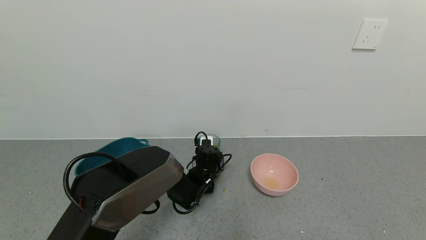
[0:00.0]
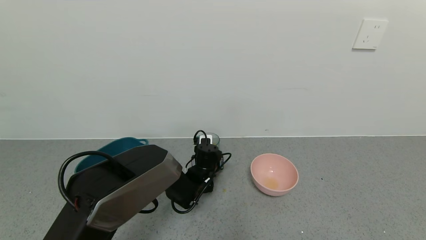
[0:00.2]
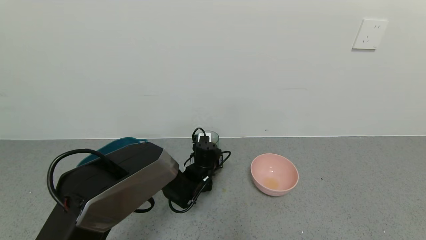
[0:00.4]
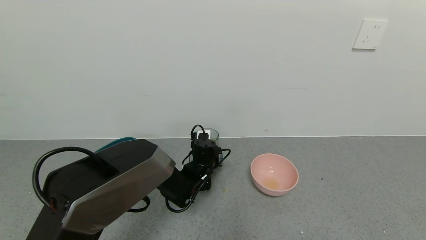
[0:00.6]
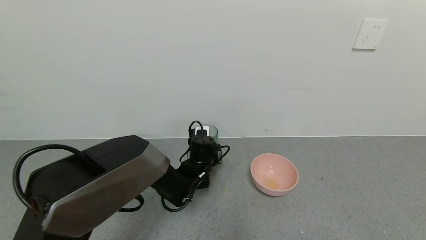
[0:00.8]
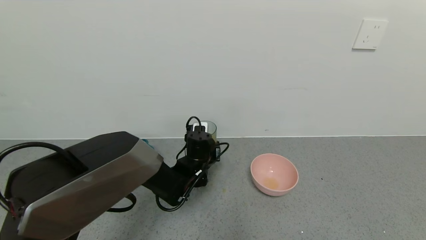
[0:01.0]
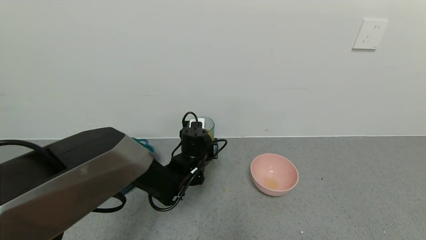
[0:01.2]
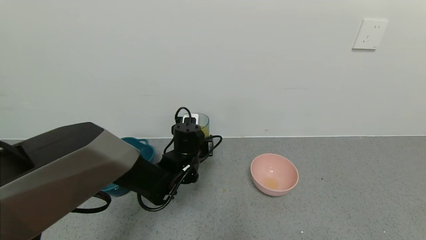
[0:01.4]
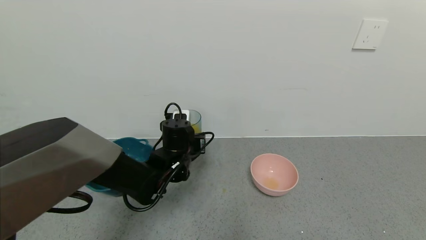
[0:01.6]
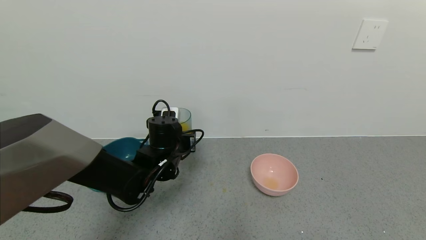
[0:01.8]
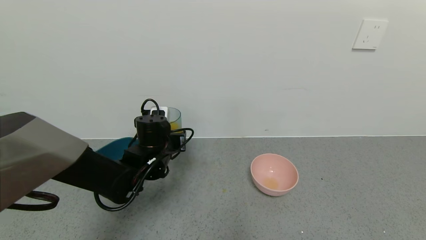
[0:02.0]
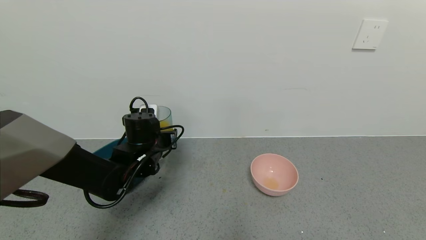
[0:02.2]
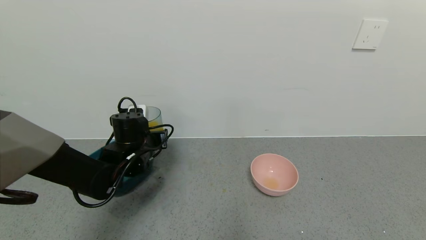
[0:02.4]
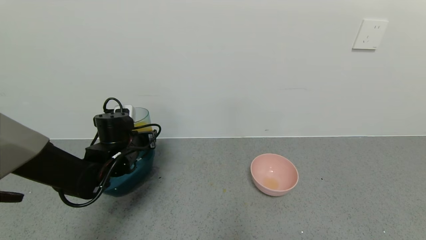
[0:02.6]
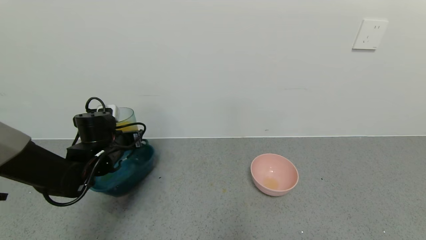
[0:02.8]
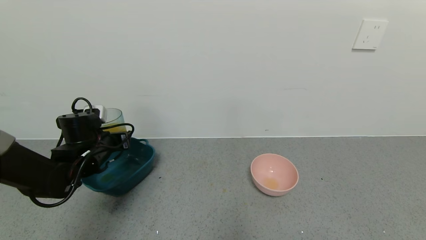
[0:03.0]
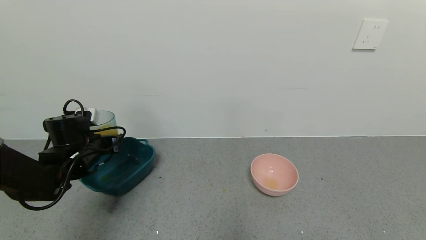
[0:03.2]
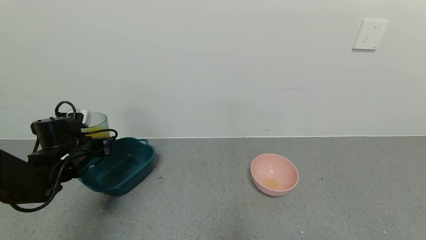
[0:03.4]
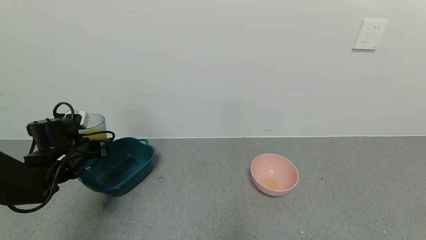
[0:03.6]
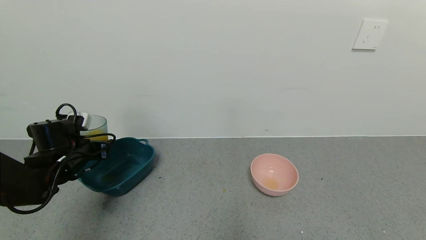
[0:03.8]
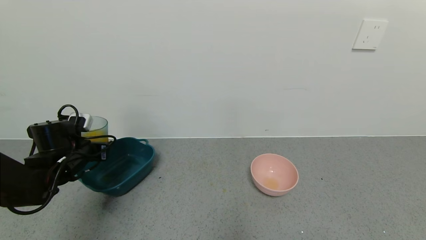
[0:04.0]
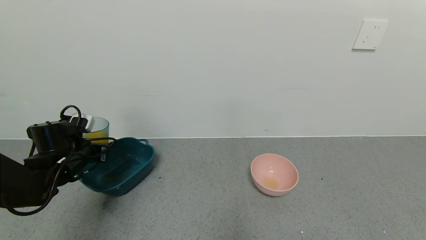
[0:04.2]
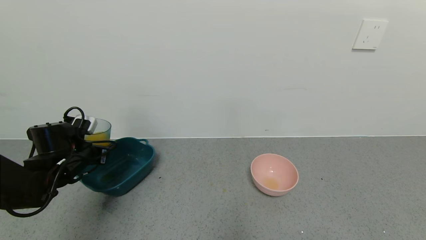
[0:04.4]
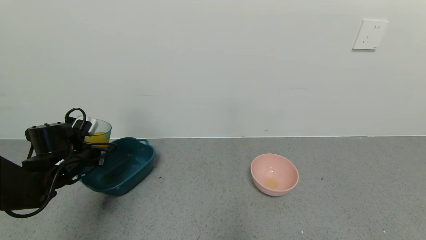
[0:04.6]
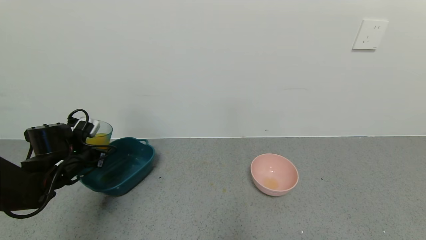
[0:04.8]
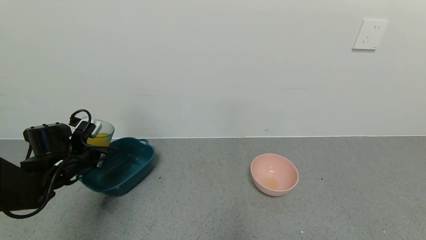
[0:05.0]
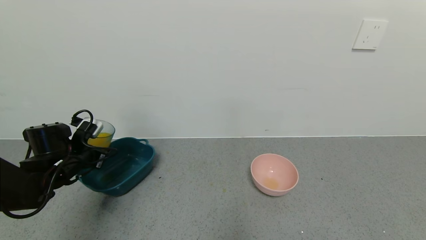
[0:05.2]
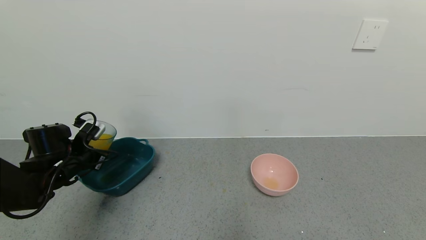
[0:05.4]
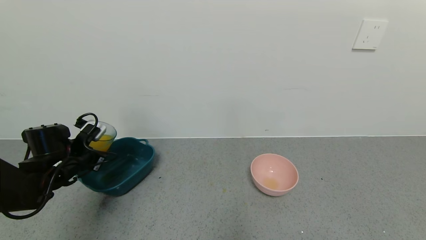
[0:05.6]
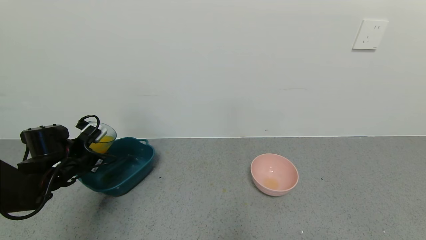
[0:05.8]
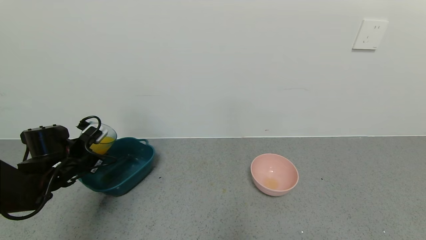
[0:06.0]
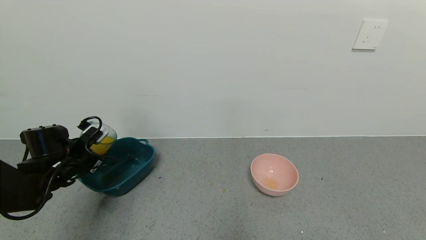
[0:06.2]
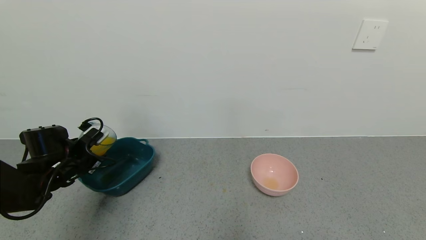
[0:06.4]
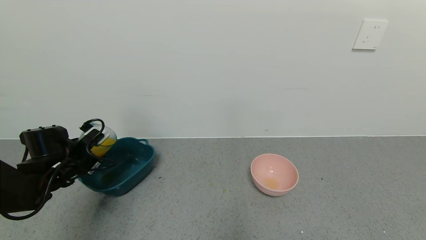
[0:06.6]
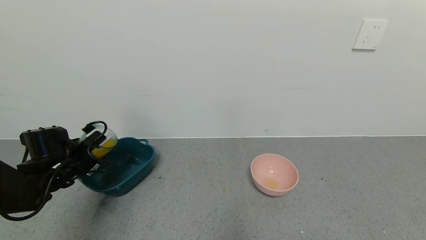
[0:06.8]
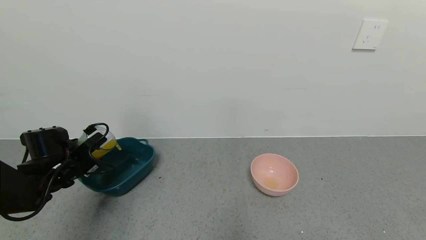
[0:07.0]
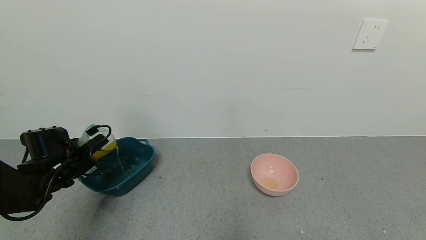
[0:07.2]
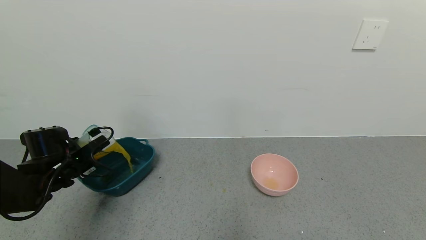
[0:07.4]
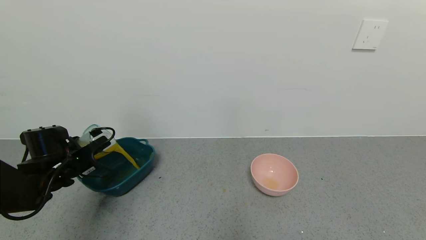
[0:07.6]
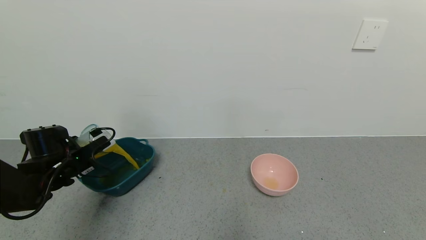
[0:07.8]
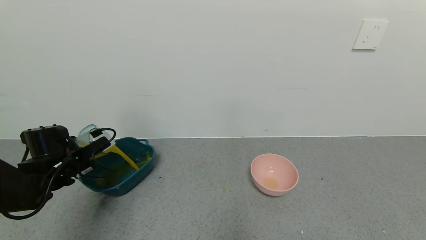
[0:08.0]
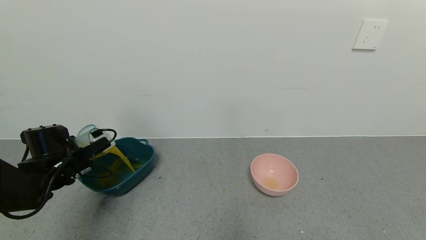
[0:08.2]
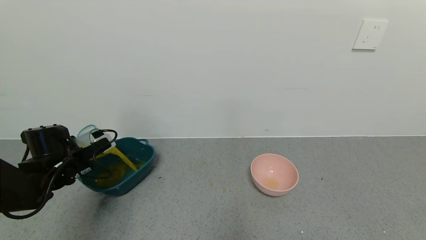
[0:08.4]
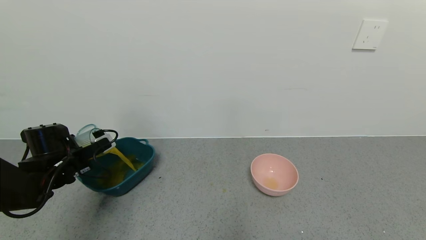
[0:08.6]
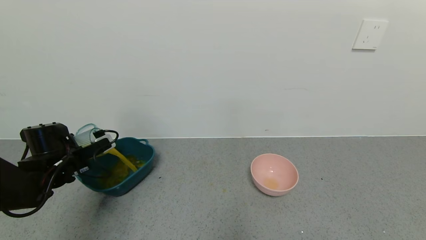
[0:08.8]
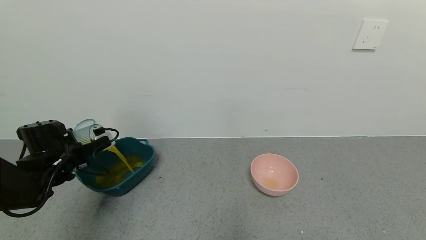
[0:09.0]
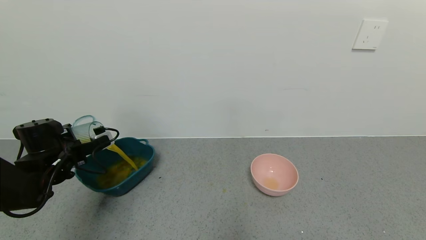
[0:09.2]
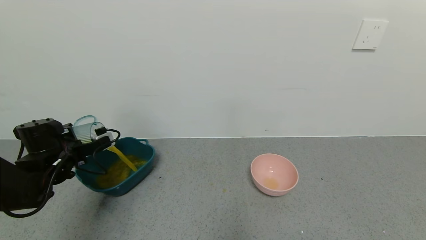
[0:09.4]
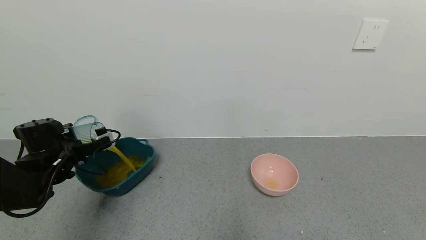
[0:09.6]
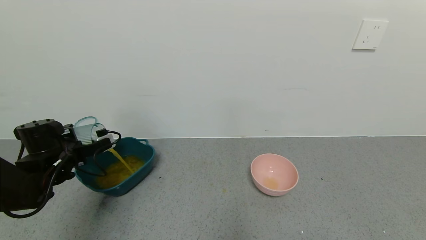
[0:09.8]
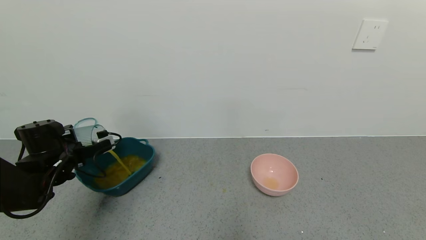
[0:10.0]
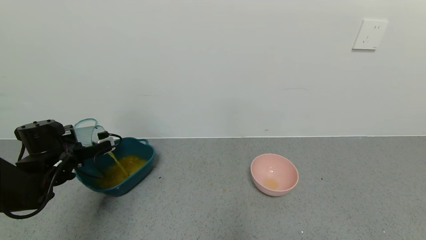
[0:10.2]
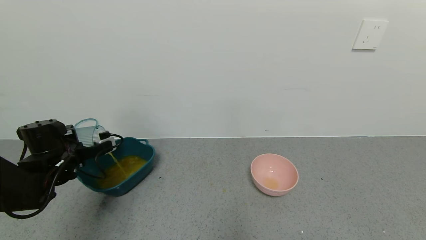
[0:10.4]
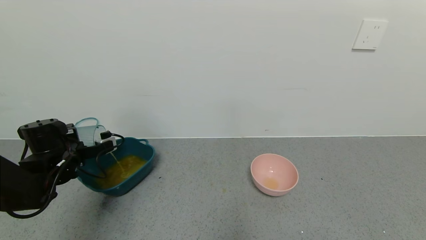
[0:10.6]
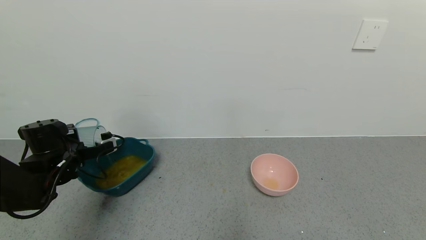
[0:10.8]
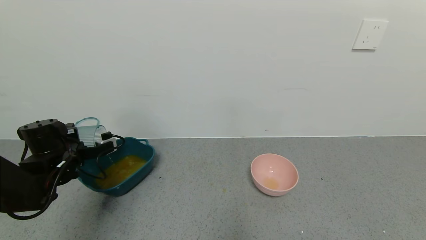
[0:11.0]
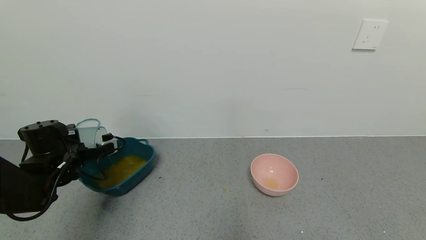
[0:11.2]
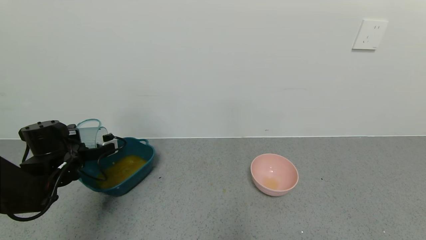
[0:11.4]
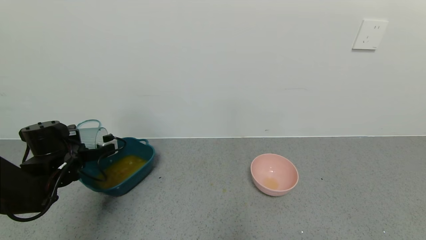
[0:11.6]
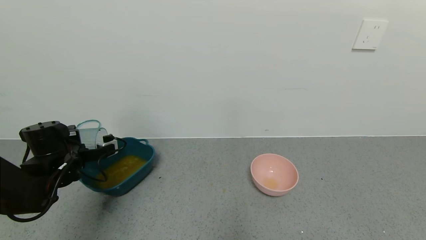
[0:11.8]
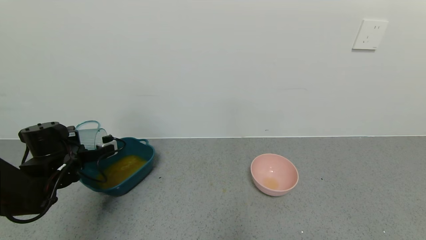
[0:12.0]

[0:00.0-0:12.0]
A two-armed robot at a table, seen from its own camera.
Task of the whole recording: use a gripper to pick up the cup and pour the liquid into a bowl or tray.
Step, 0:00.4 to 0:12.0: Pour the orange juice into the blue basin with left gripper.
0:00.0 to 0:01.6: The left gripper shifts about 15 cm upward, backward and to the left.
0:01.6 to 0:03.0: The left gripper moves to the left, about 20 cm.
0:03.0 to 0:04.4: The left gripper moves to the left, about 5 cm.
0:07.6 to 0:09.0: The grippers stay close to where they were, moving slightly.
0:09.0 to 0:10.4: The grippers move only a little.
0:10.4 to 0:12.0: Both grippers stay about where they are.

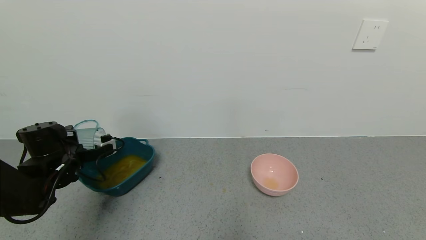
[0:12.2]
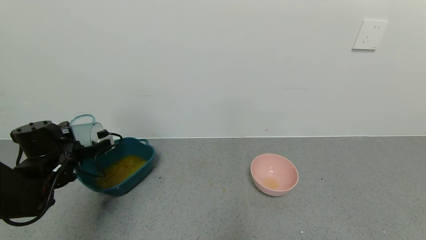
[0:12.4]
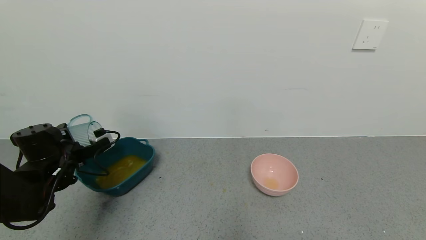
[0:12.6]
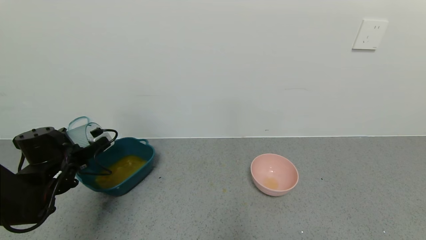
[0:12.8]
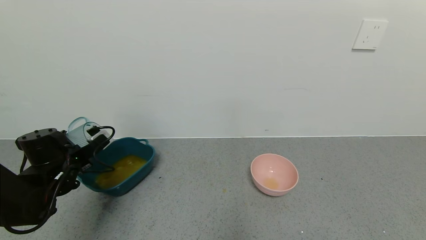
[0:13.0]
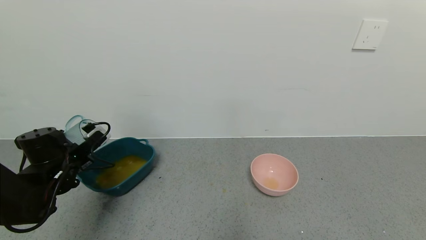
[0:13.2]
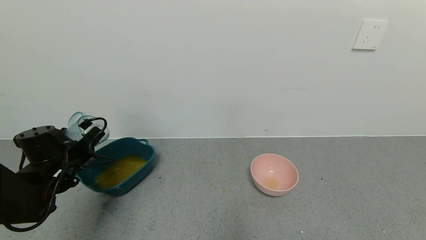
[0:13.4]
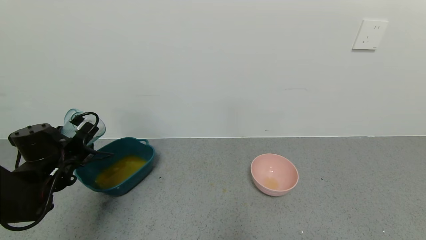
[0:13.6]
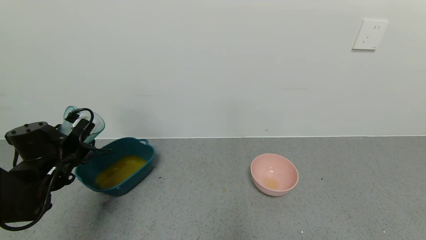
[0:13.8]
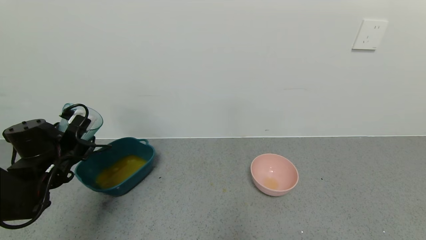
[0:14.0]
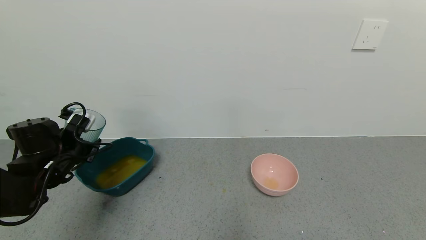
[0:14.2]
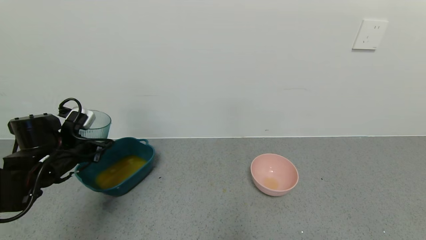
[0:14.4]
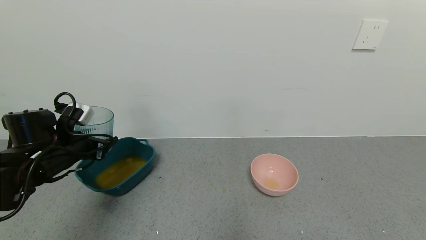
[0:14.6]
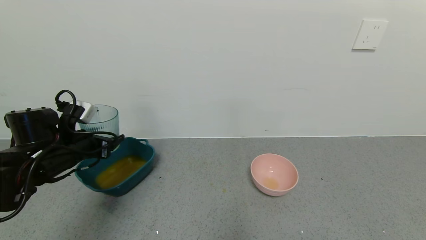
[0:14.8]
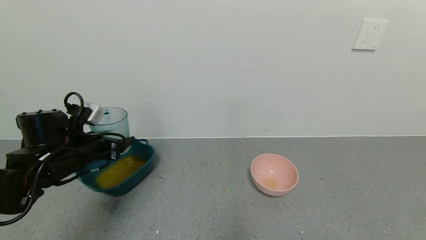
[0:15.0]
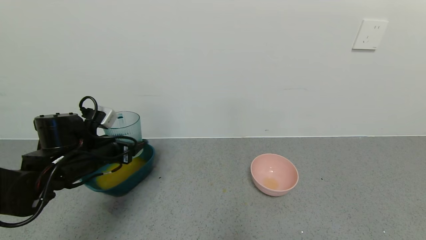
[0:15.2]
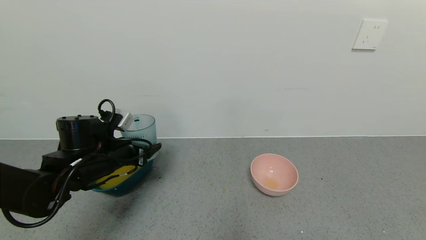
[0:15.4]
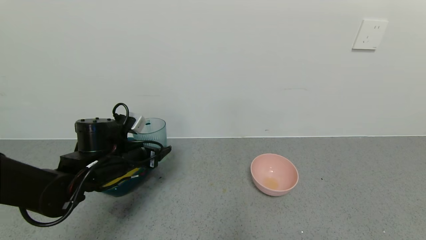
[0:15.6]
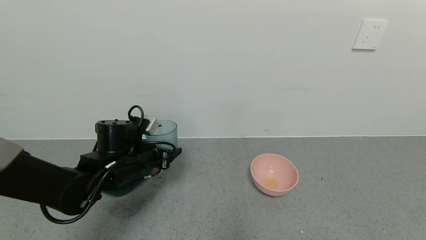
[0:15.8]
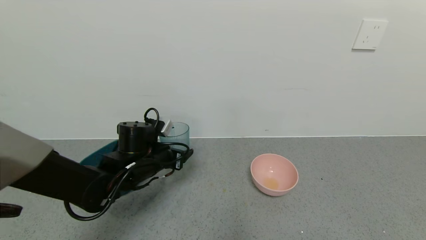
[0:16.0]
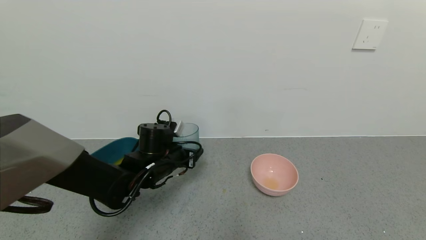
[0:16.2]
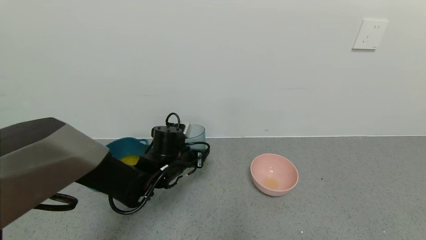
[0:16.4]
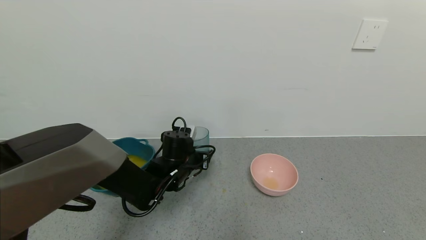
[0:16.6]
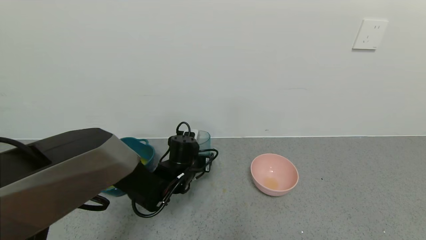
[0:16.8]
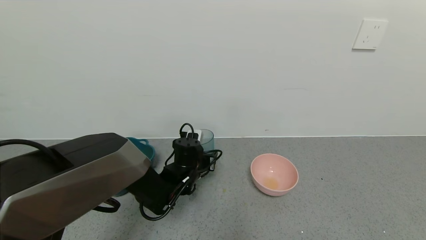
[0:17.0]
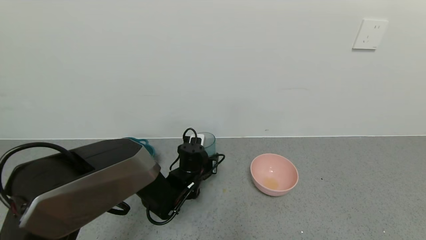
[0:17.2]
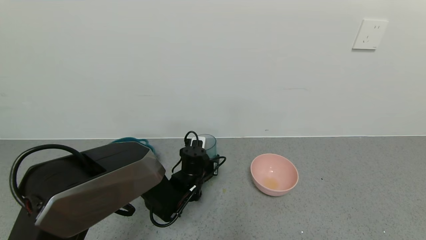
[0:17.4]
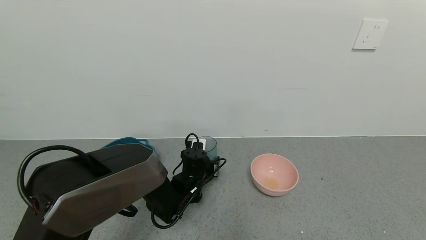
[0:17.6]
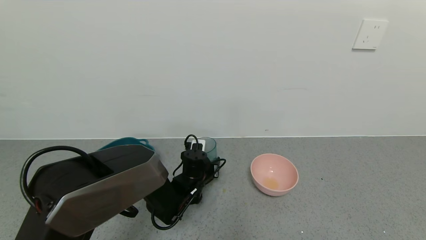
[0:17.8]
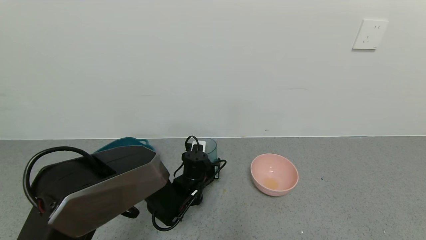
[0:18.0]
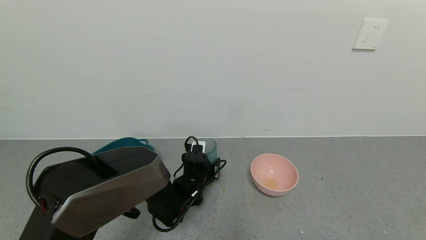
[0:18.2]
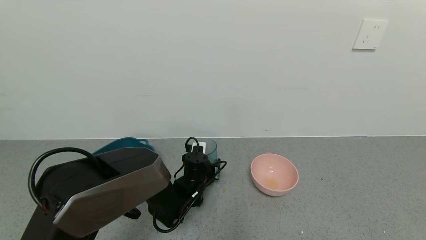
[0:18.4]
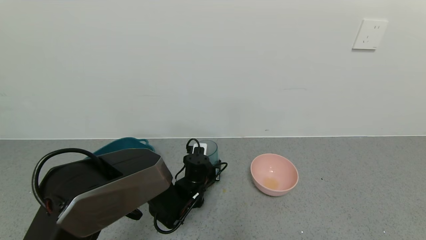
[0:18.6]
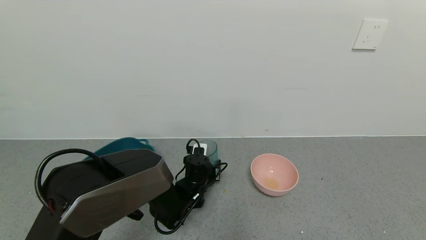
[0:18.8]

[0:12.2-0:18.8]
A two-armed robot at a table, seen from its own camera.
Task of the whole recording: use a gripper to pick up the cup and pour the liquid into a bowl or tray.
0:13.8 to 0:15.4: The left gripper heads to the right, covering about 10 cm.
0:15.4 to 0:17.2: The left gripper shifts approximately 20 cm to the right and downward.
0:17.2 to 0:18.8: There are only small adjustments of the grippers.
